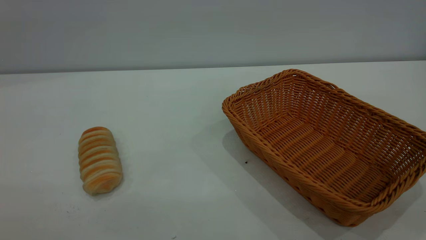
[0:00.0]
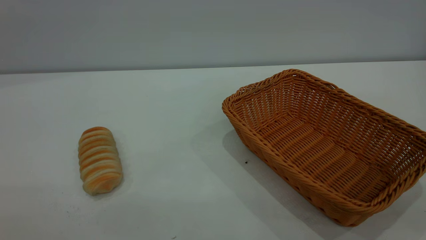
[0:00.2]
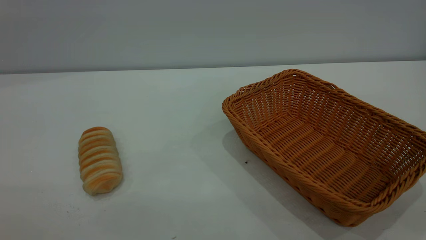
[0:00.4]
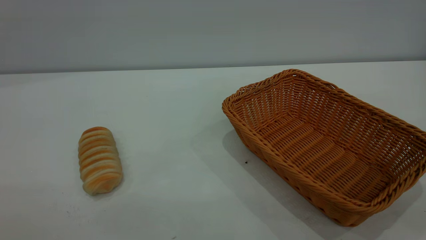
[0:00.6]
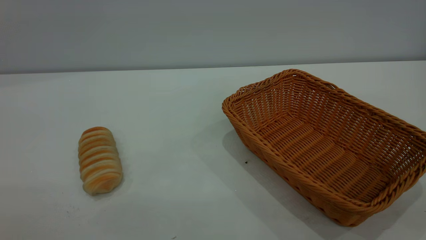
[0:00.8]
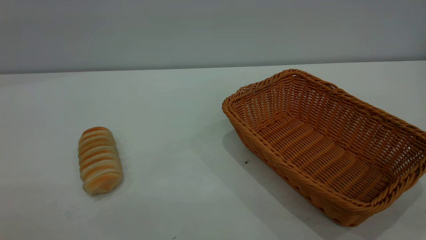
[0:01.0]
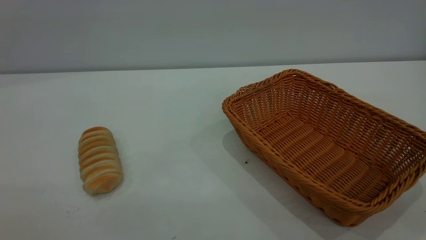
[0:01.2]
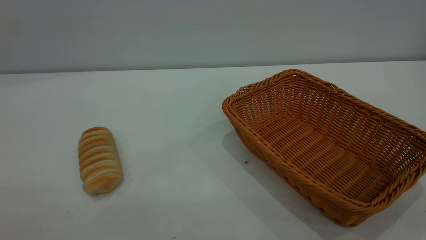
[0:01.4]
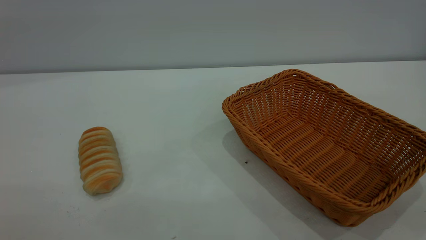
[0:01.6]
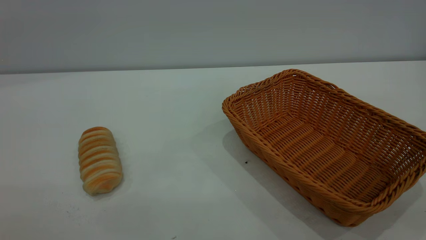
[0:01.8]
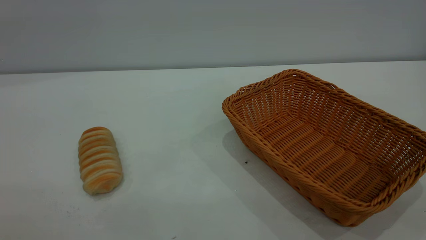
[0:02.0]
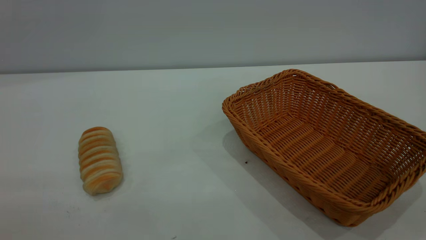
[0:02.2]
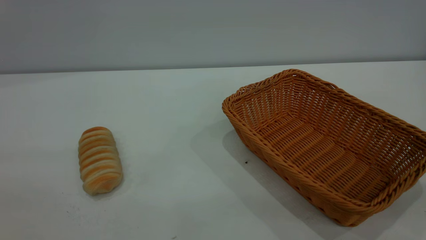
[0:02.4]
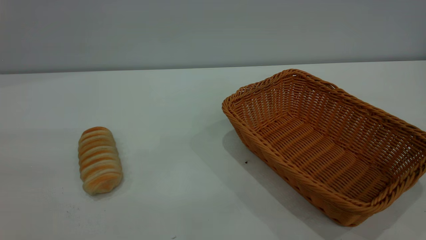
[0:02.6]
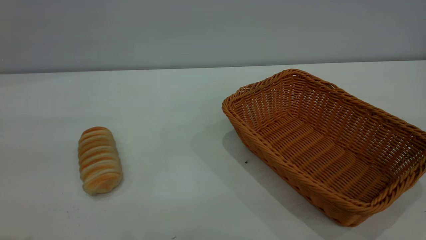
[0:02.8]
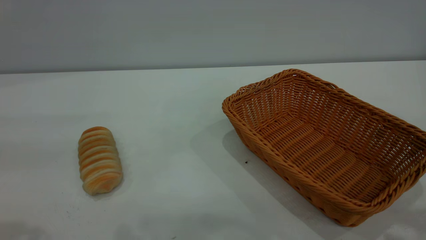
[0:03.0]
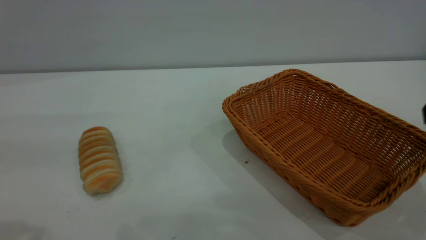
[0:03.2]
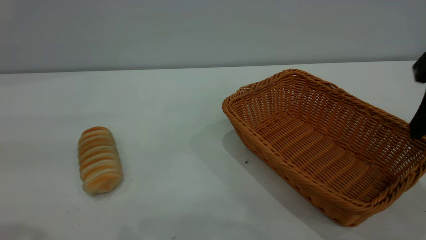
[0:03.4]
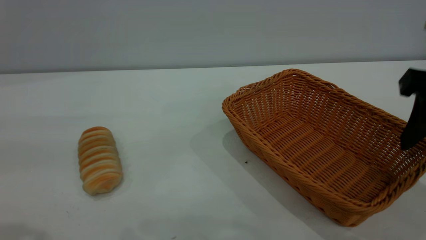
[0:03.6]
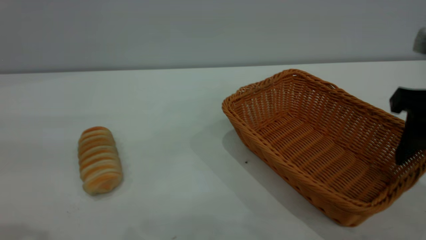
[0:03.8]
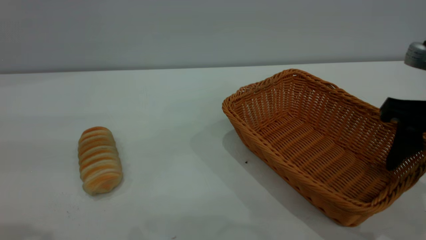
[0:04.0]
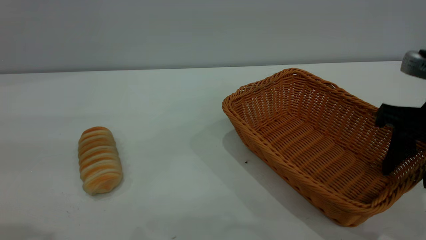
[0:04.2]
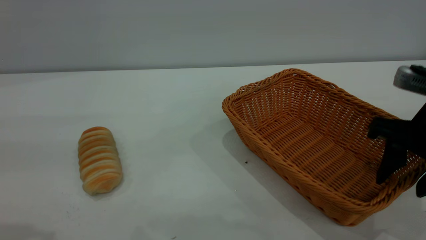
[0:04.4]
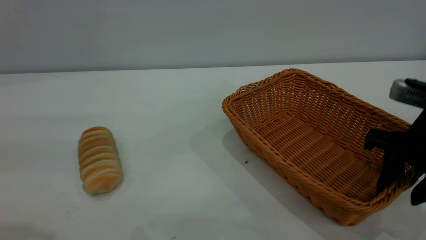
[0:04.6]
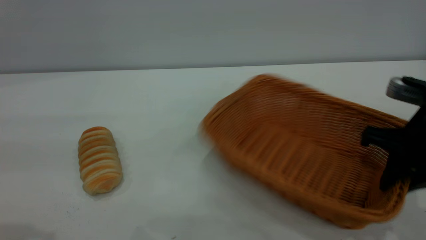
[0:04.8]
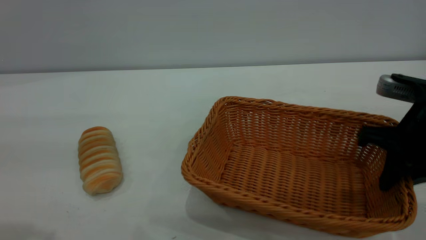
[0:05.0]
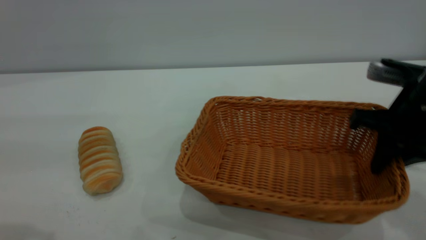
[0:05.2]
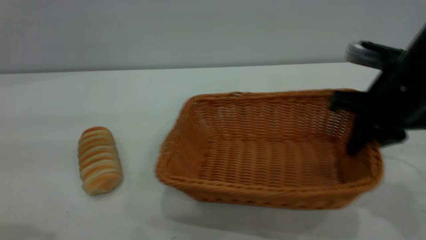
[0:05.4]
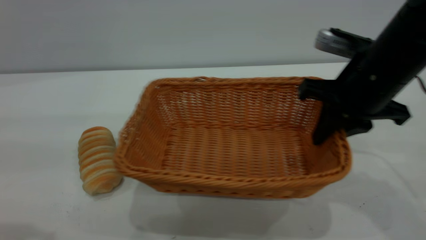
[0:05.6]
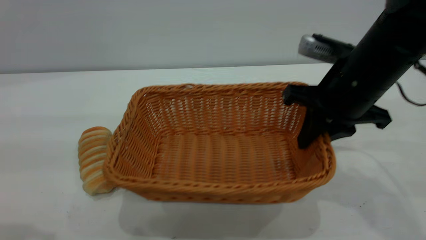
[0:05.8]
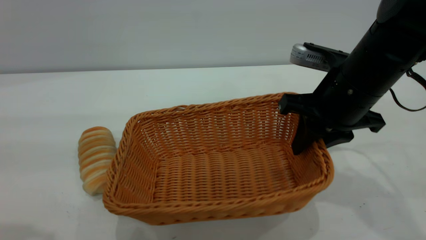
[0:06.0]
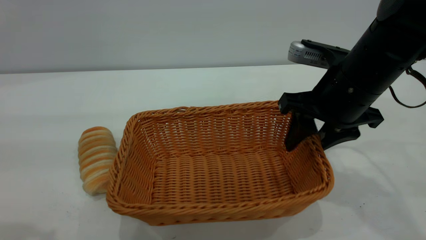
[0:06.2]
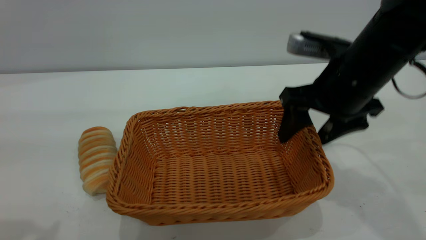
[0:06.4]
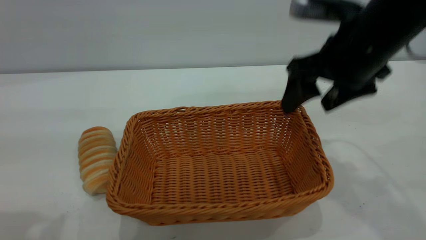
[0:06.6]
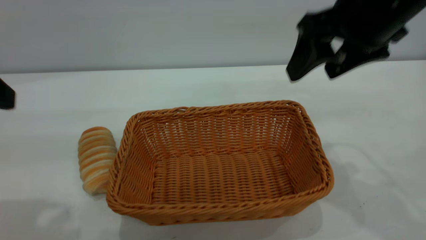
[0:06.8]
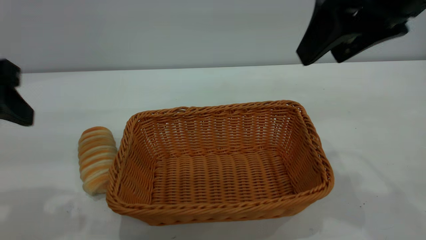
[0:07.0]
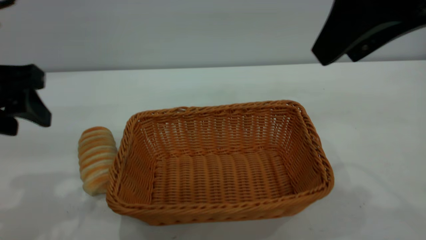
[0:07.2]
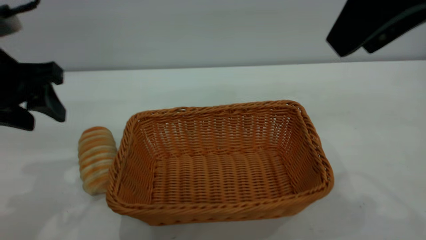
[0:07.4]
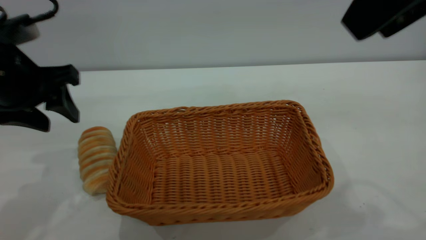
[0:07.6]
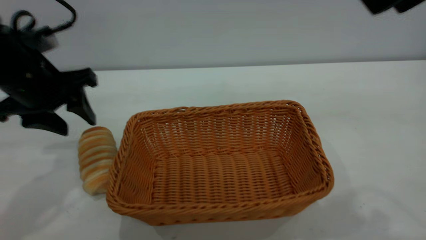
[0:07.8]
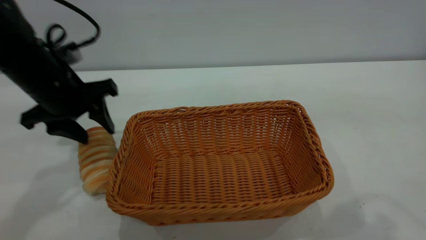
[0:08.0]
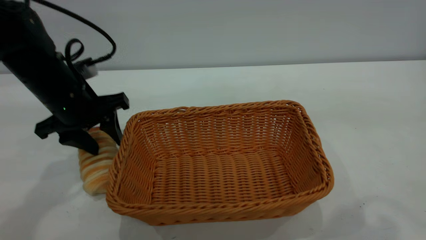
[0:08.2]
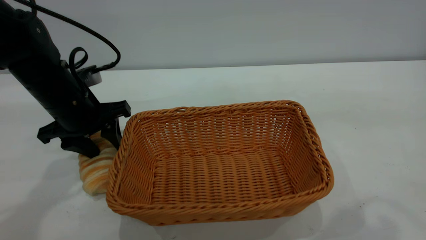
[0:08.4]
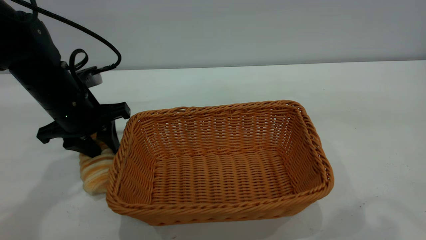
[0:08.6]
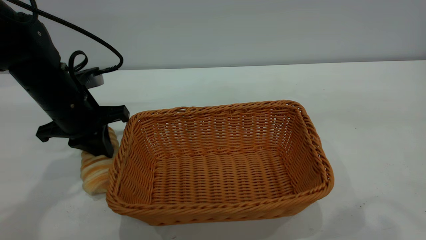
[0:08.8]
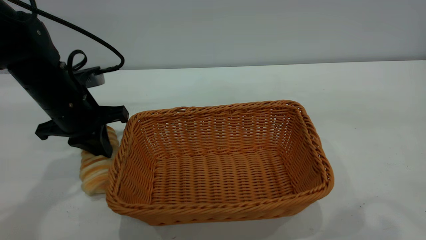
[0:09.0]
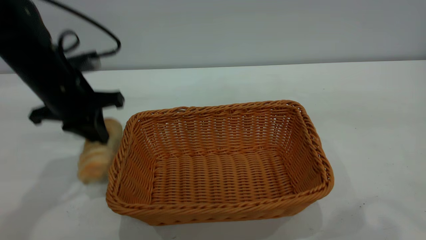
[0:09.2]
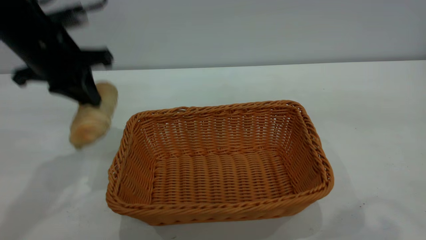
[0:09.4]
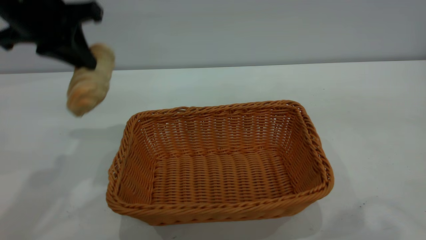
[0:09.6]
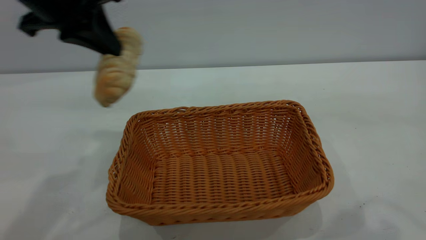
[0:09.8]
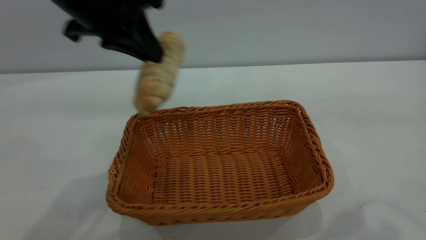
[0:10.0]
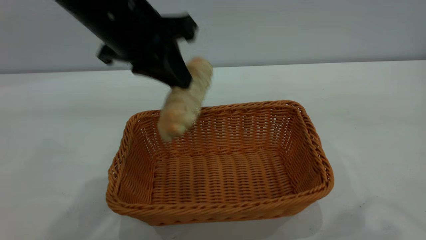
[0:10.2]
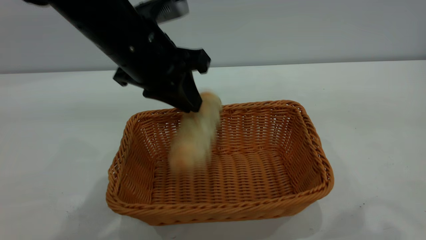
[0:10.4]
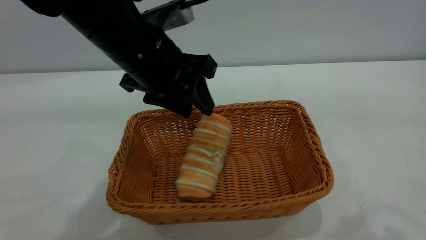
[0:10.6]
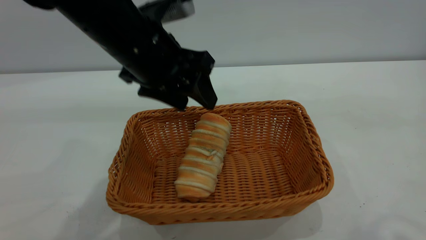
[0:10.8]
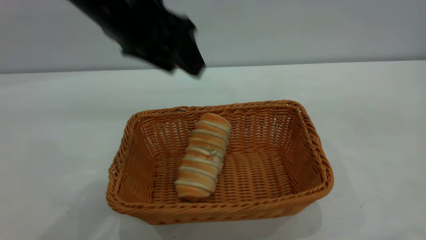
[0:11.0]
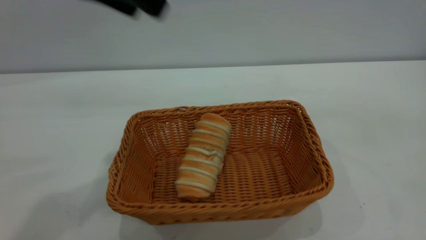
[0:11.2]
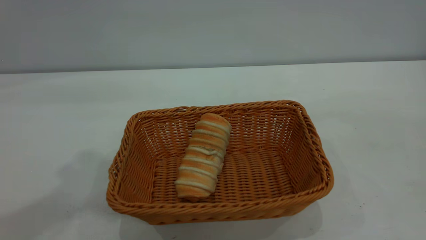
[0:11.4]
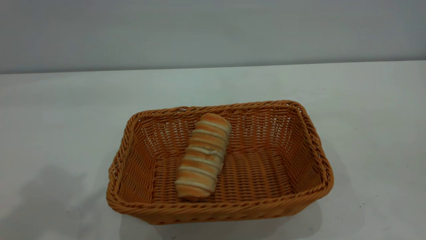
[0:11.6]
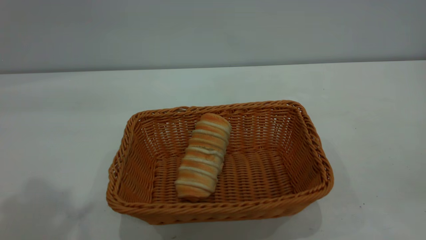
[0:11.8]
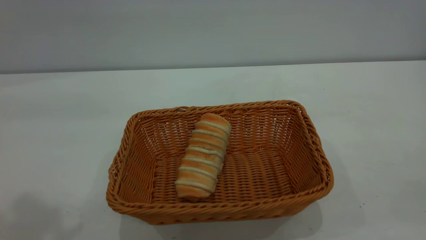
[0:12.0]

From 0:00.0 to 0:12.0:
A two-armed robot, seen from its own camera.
Task of the whole recording: One hand grasps the yellow basket and places it in the middle of the table, while the other hand picks up the long bread and puts it into the yellow basket.
Step, from 0:00.0 to 0:06.6: Move the basket to the center of view.
Step, from 0:09.4 to 0:10.8: place the bread into the basket.
From 0:00.0 to 0:01.6: The two grippers keep their place.
From 0:03.0 to 0:04.4: The right gripper goes some 15 cm downward and forward.
From 0:04.4 to 0:06.0: The right gripper is displaced to the left and forward by about 10 cm, and closes.
From 0:06.0 to 0:07.6: The right gripper shifts approximately 25 cm upward and backward, and opens up, while the left gripper heads forward and downward, covering about 20 cm.
From 0:07.6 to 0:09.0: The left gripper moves downward and forward, some 10 cm, and closes up.
From 0:09.0 to 0:10.4: The left gripper goes roughly 15 cm to the right and upward, and opens up.
From 0:10.4 to 0:12.0: The right gripper heads backward and to the right, covering approximately 20 cm. The left gripper is displaced upward, to the left and backward by some 30 cm, and opens up.

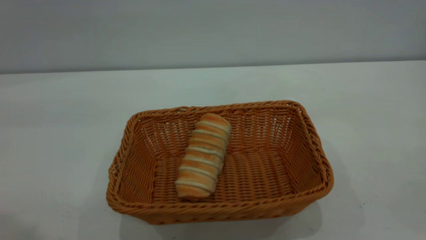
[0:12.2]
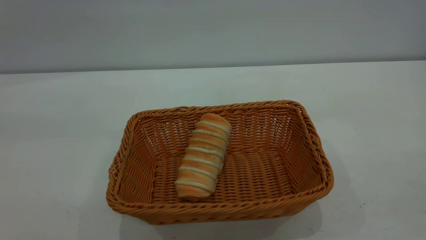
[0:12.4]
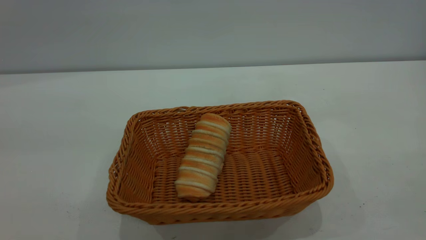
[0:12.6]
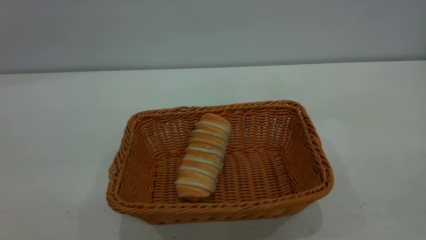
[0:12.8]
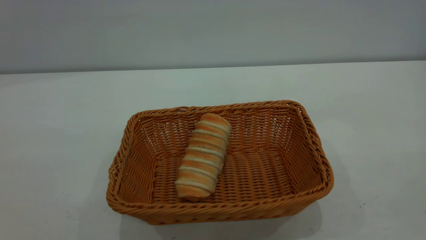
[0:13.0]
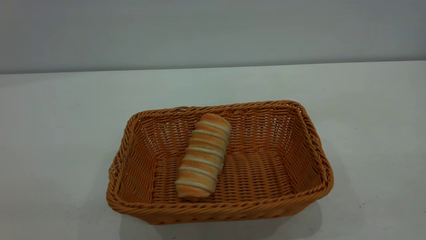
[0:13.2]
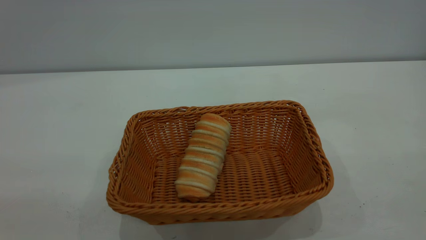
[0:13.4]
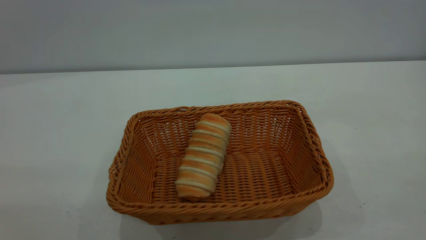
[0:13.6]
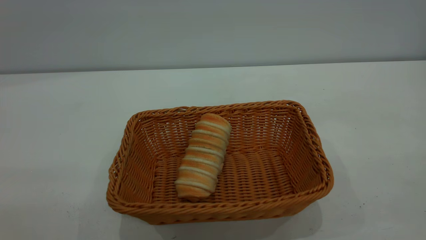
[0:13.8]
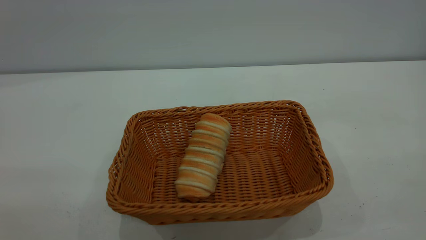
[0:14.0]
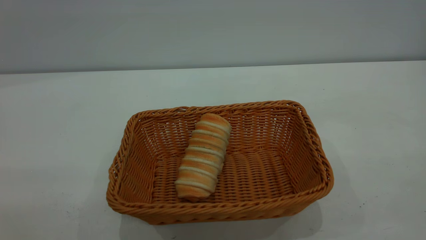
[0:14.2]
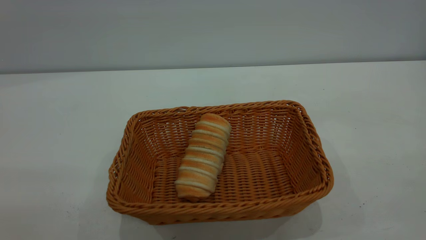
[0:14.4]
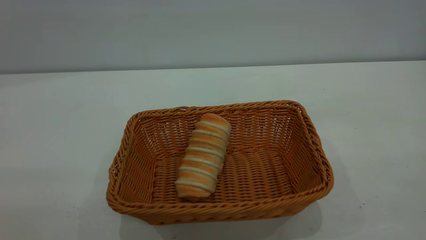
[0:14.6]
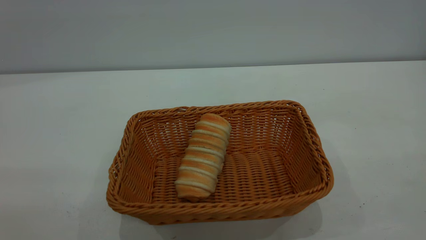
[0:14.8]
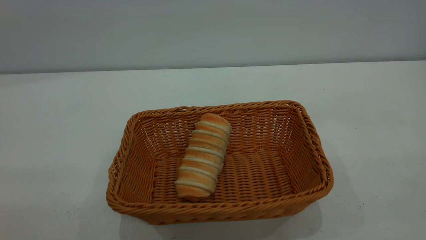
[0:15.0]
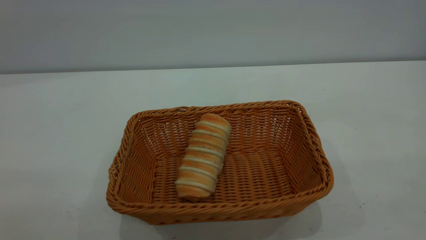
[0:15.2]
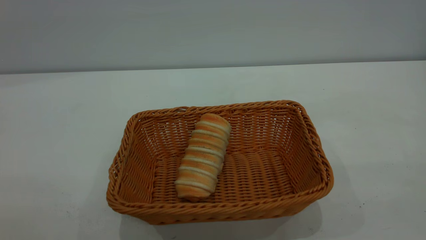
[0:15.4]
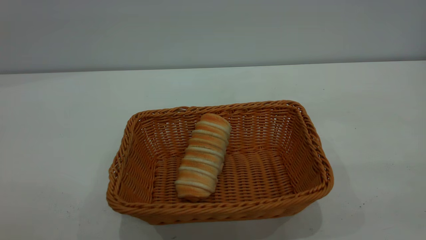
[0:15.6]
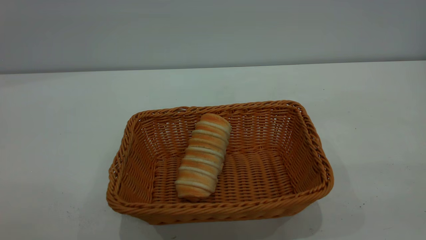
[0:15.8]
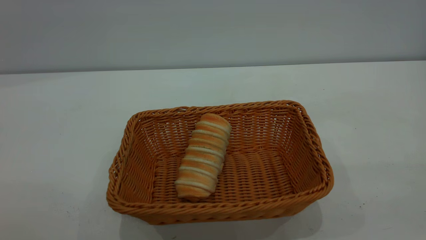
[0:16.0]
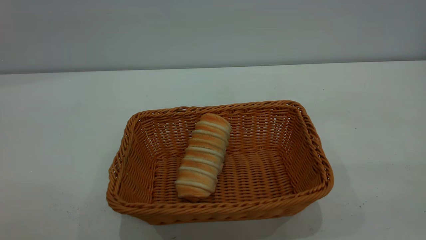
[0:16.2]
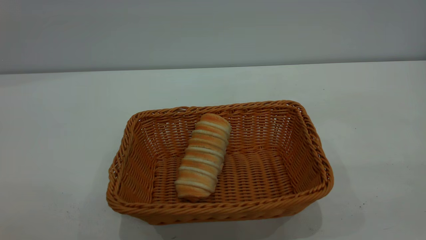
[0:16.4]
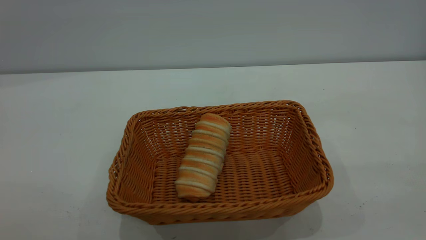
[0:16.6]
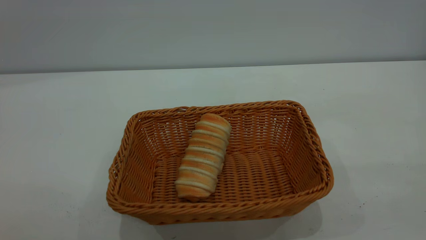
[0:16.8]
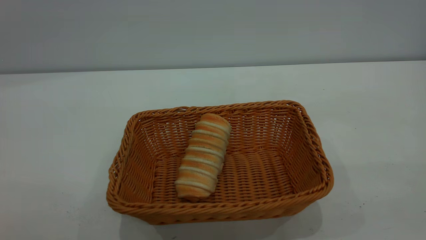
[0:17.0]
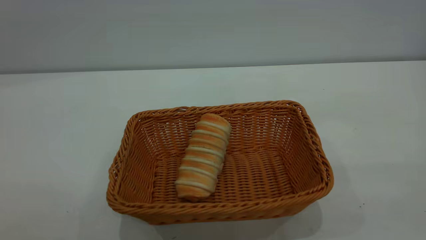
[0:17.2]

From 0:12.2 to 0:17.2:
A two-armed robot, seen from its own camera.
Task of the whole recording: One hand grasps the yellow basket and places it in the middle of the table, while the other hand picks up the long bread and puts it into the yellow basket.
From 0:15.6 to 0:17.2: Both grippers stay put.
